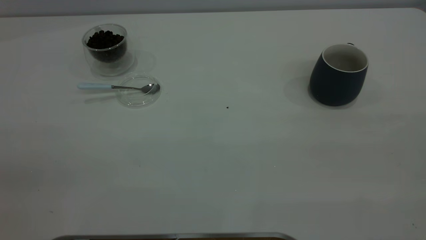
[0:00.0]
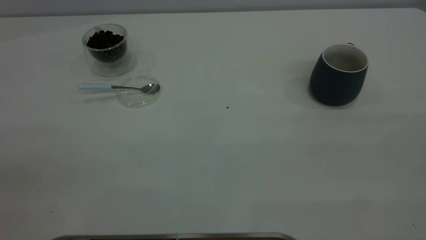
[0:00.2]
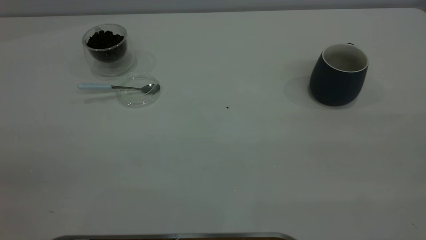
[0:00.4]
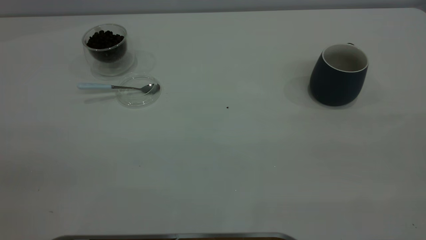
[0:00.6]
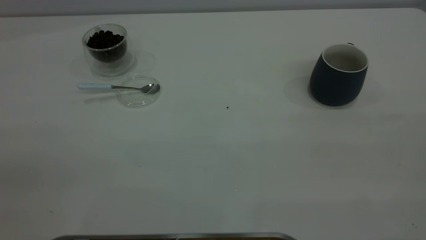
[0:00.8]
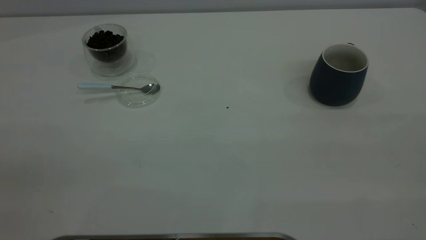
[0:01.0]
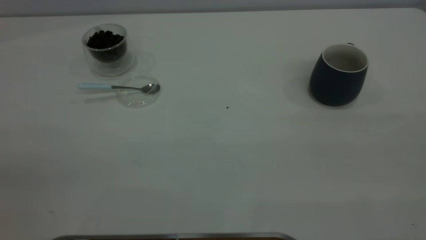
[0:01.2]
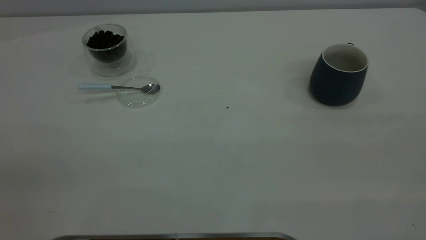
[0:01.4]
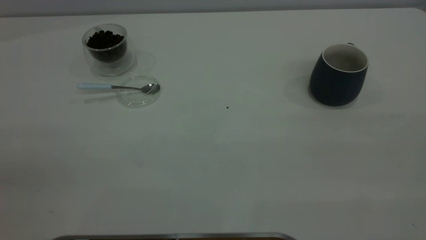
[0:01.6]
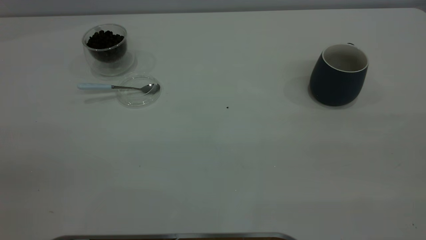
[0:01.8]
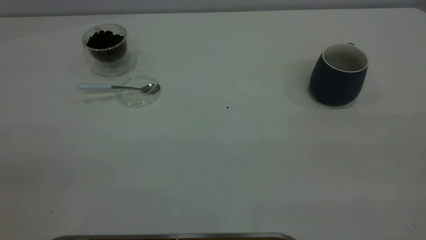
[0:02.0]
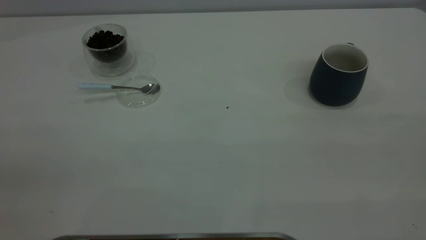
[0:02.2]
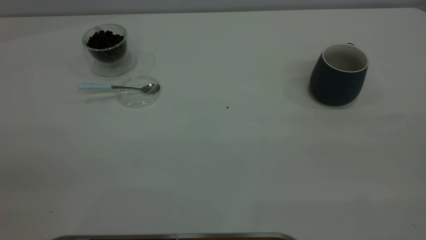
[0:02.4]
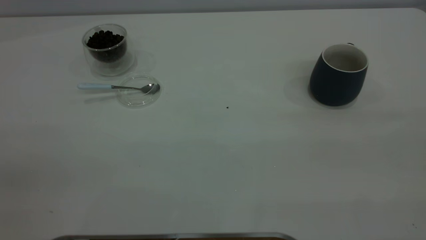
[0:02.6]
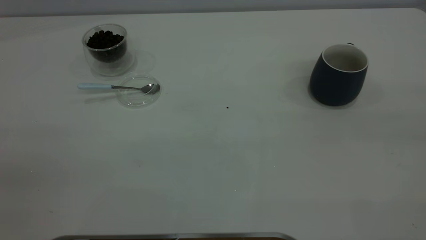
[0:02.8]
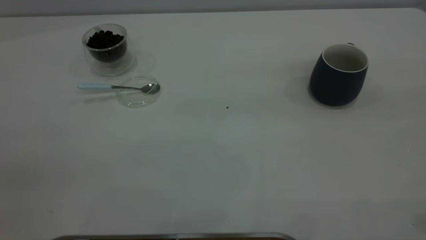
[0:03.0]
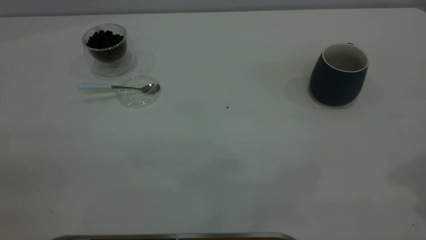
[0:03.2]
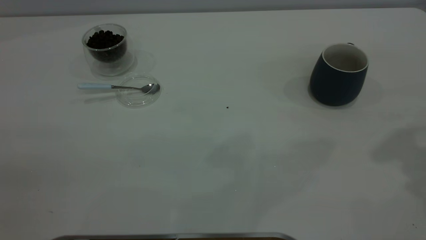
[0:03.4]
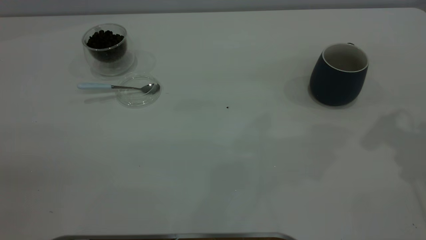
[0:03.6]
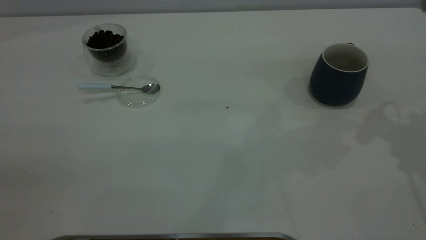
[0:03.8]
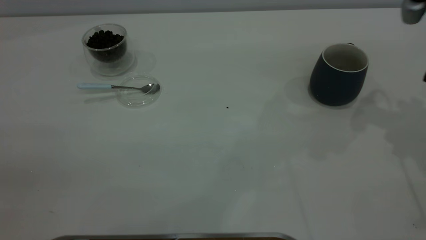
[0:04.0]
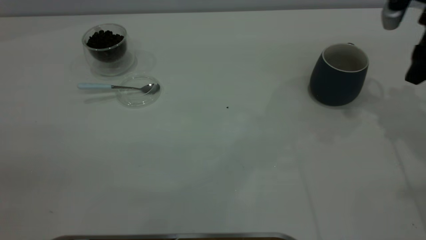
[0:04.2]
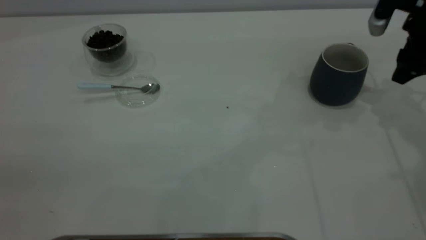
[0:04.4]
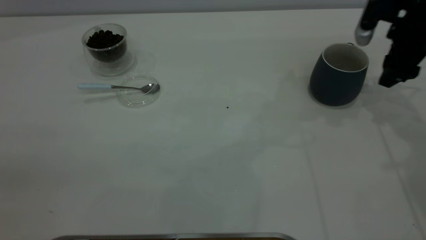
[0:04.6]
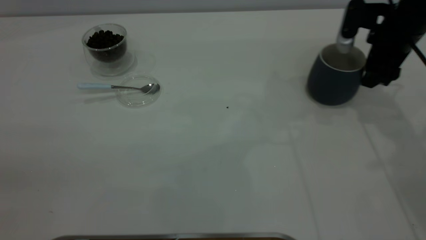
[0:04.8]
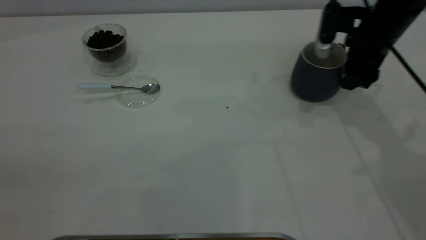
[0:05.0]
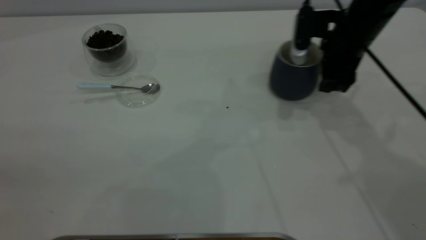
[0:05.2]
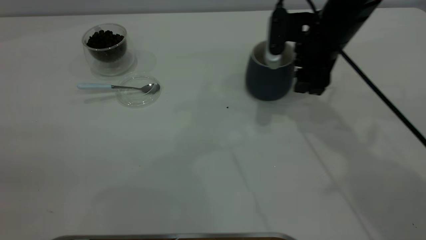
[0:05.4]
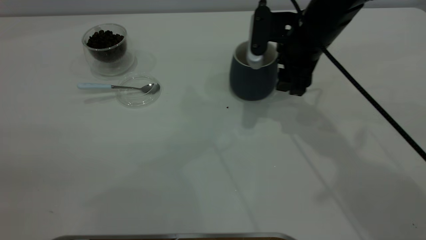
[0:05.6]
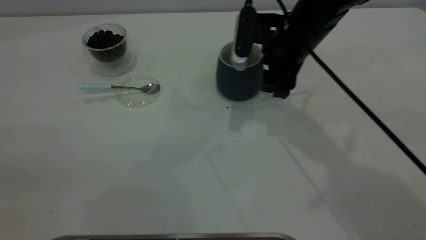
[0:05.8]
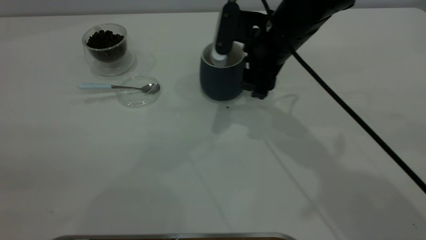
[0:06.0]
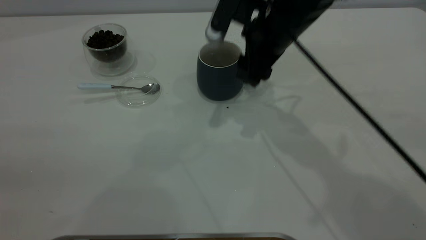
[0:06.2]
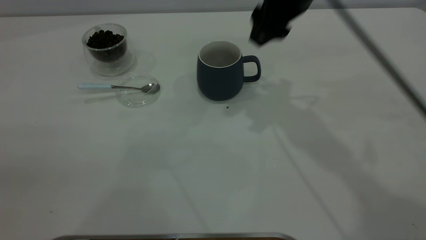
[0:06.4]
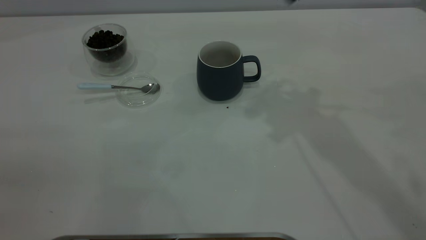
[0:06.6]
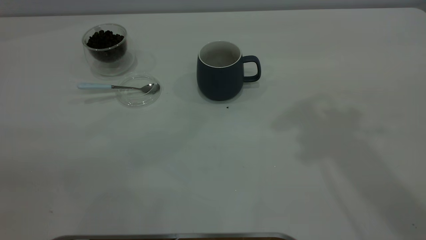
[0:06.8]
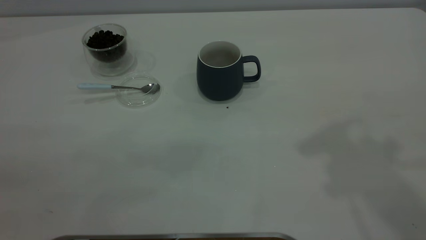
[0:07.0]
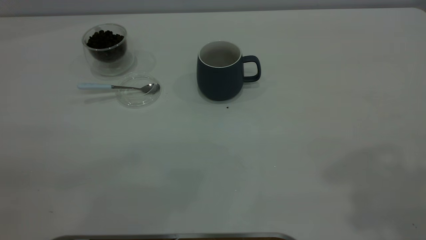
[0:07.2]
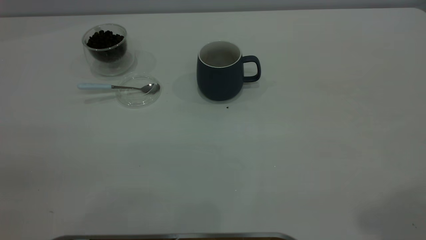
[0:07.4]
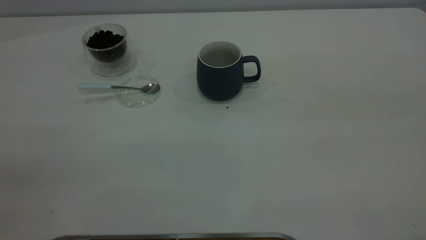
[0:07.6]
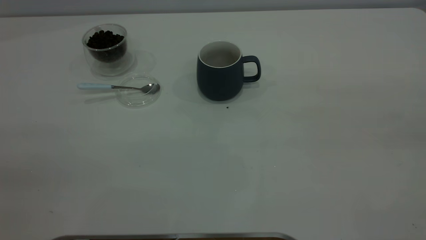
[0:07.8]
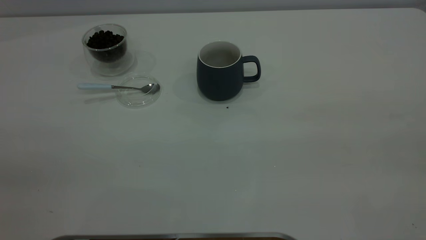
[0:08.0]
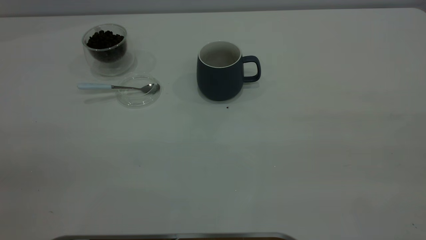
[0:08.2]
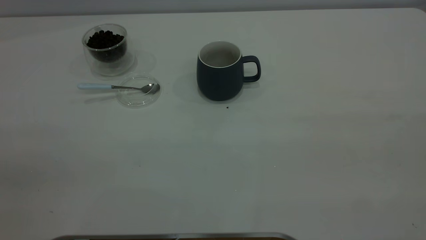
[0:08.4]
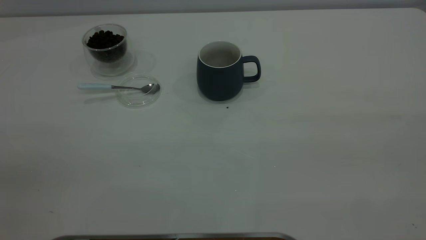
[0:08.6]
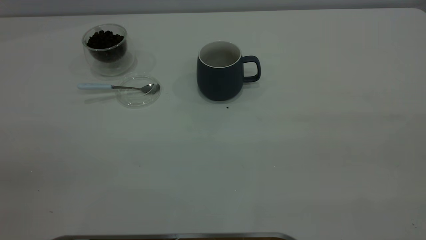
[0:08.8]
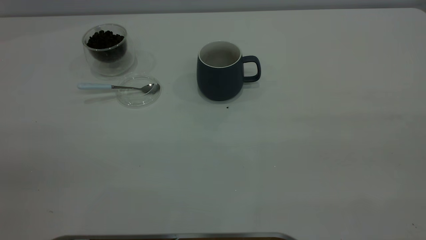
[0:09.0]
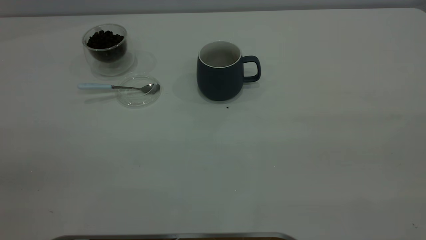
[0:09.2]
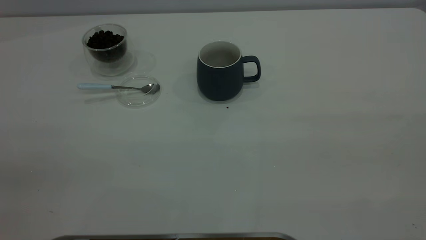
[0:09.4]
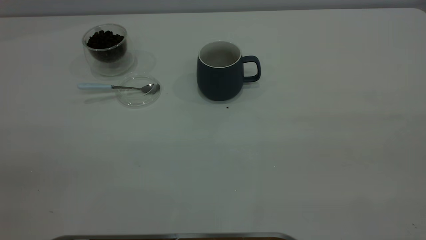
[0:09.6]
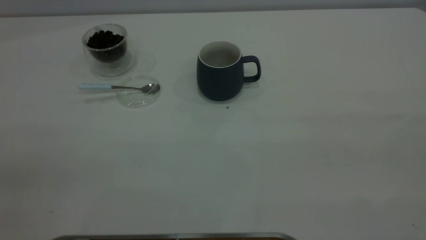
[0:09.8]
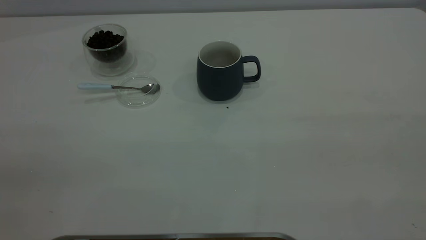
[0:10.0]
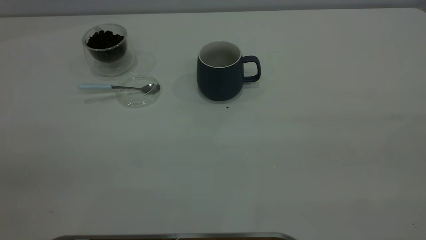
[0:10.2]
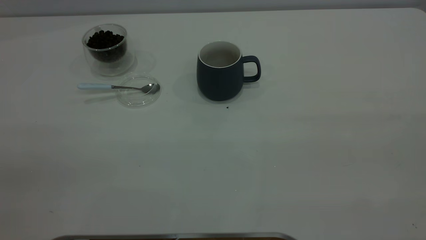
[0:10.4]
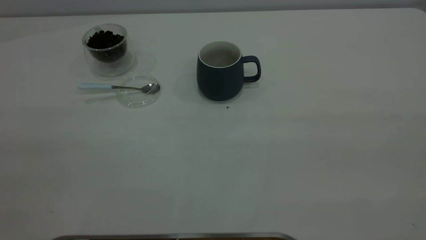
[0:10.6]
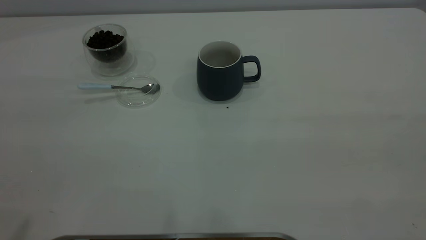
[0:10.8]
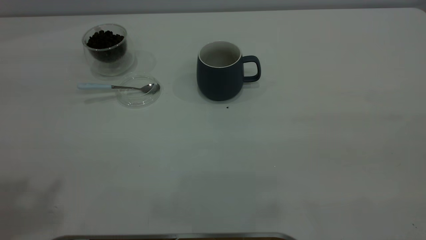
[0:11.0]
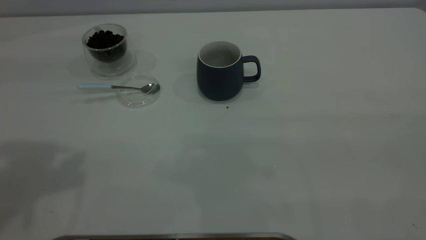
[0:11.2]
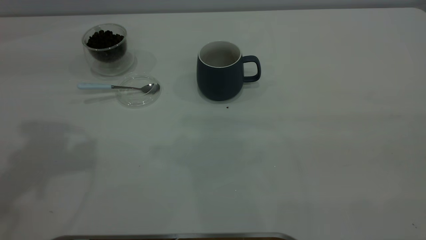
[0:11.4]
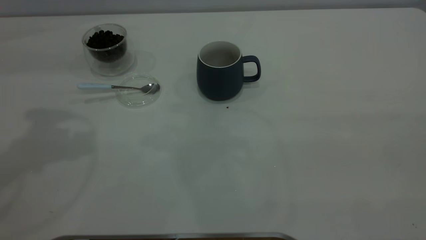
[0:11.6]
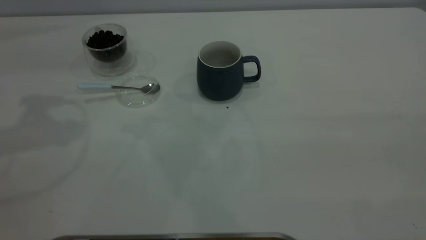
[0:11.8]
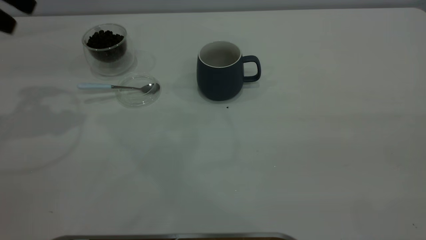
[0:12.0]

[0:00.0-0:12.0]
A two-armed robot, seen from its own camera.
Task of the whole recording: the right gripper place the grey cup in the center of the table, the left gripper take the blue spoon from the cup lid and scoop out the coffee beans from the coffee cup and put them into the grey cup, the left gripper put the spoon back into the cup lid.
Step, 0:00.0 to 0:06.4: Move the cup to the center of view.
0:00.0 to 0:01.6: Neither gripper changes place.
0:03.0 to 0:04.4: The right gripper moves forward and downward, roughly 35 cm, and closes.
0:04.4 to 0:06.0: The right gripper travels to the left by roughly 25 cm, and closes its fingers.
0:06.0 to 0:07.6: The right gripper travels upward, backward and to the right by roughly 50 cm.

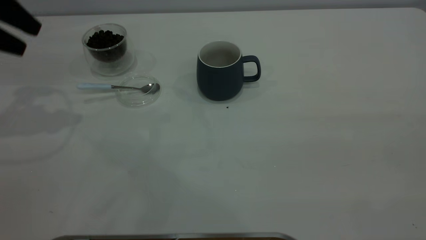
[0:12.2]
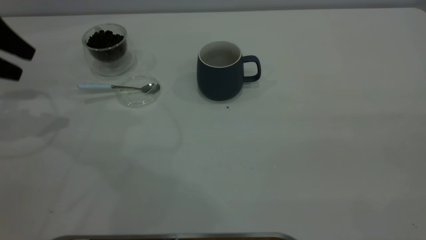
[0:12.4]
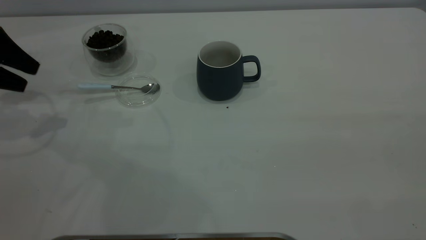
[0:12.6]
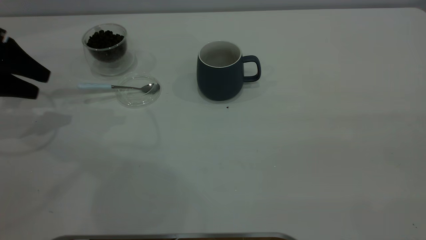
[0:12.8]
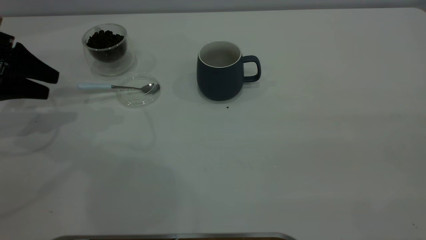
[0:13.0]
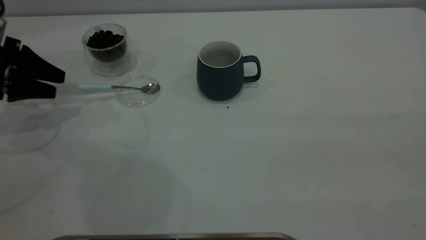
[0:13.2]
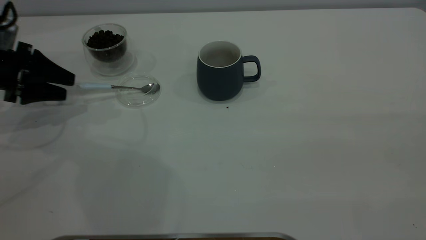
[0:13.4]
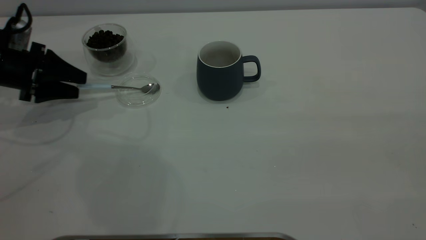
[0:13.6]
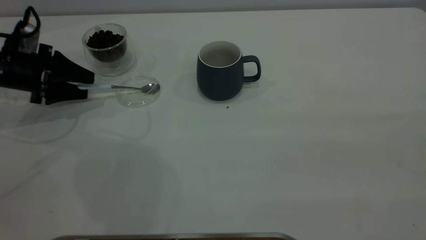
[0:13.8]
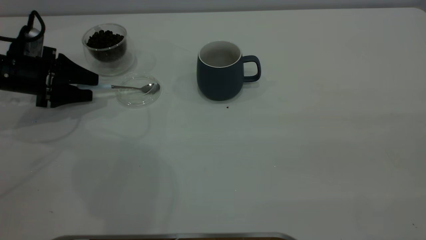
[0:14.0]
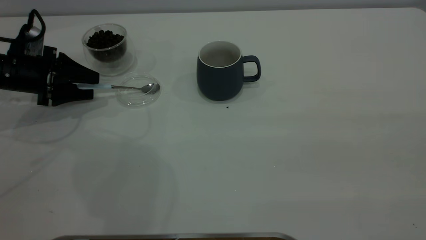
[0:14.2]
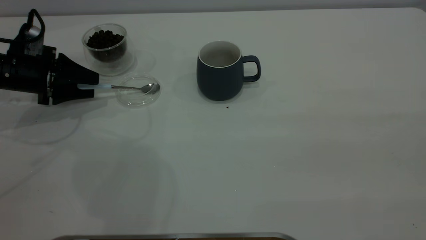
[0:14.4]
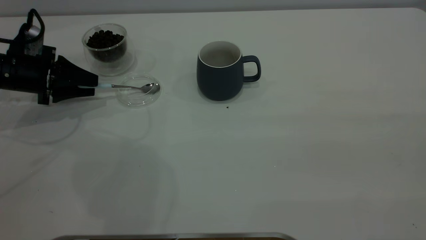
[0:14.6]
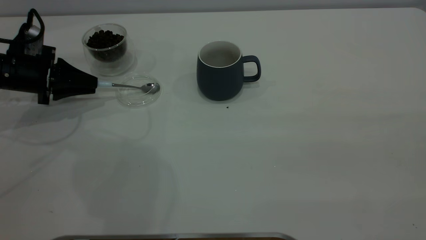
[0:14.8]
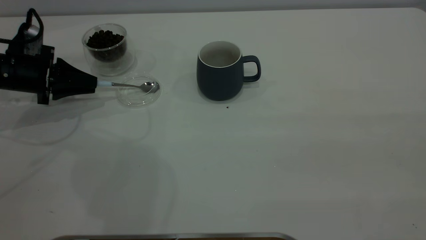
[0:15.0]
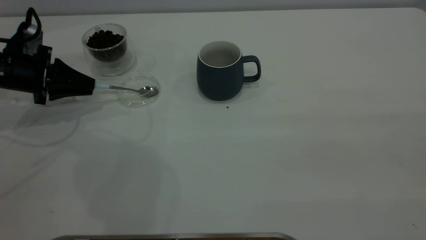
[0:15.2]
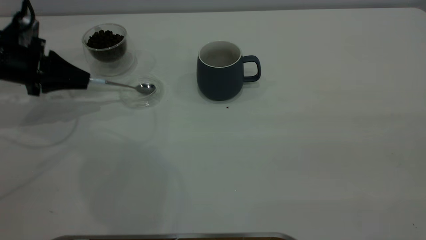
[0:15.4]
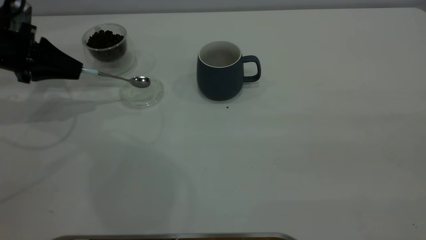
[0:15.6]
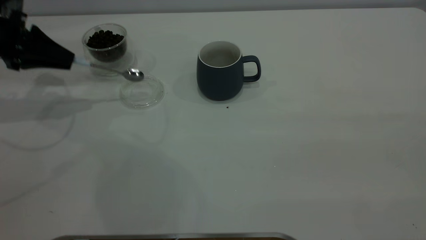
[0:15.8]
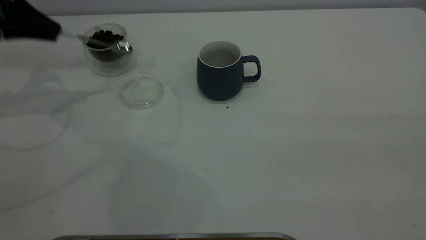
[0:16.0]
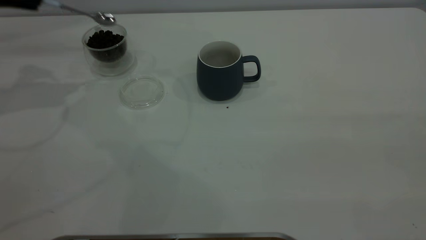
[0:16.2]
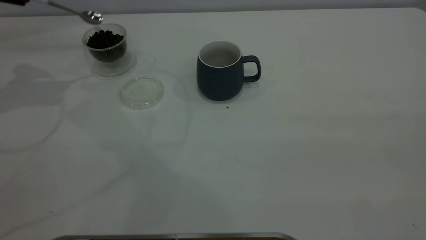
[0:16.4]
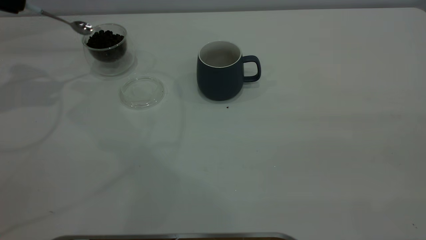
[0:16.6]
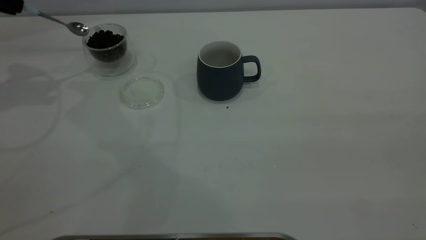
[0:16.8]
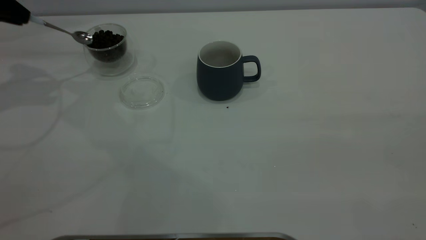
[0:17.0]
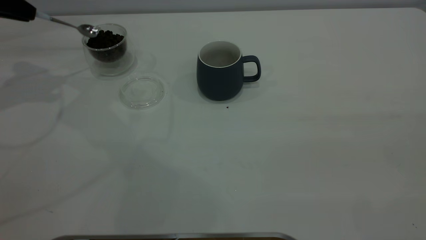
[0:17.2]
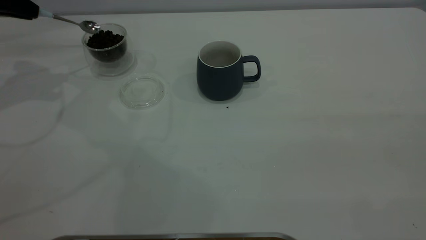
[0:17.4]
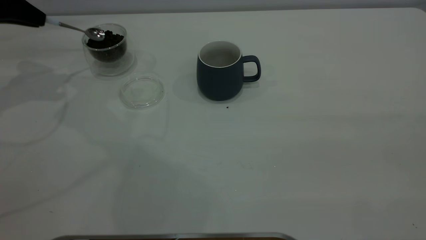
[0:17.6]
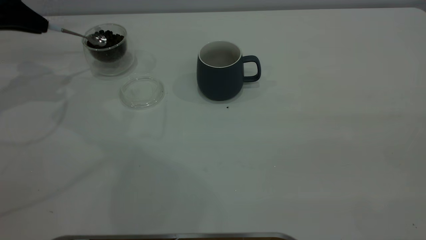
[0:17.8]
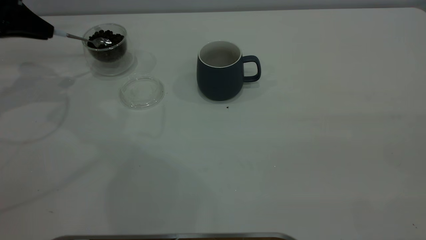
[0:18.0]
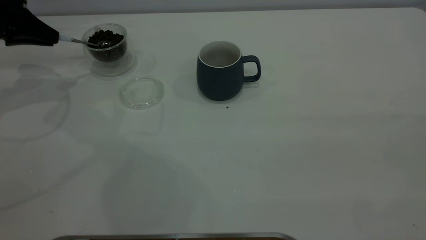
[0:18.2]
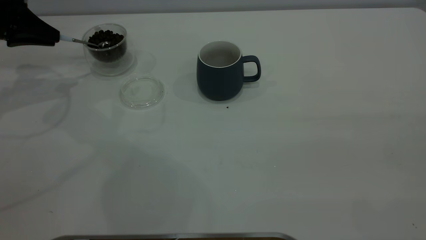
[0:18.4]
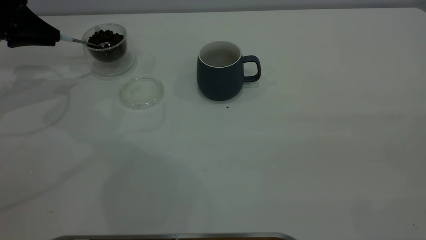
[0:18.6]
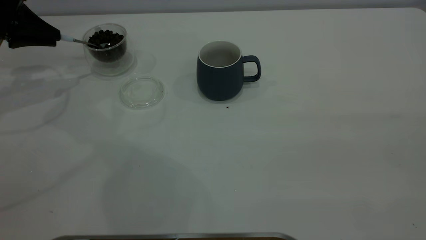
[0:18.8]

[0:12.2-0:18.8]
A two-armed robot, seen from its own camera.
Task of the whole recording: the right gripper place the grey cup in the center of the table, the left gripper take the blue spoon from the cup lid and scoop out the coffee beans from the coffee cup and put them into the grey cup, the left gripper put the spoon back into the cup lid.
Step, 0:12.2 to 0:16.0: Pick up the spoon.
0:12.2 to 0:13.8: The left gripper goes some 15 cm downward.
0:13.8 to 0:15.4: The left gripper closes its fingers.
0:15.4 to 0:17.2: The left gripper shifts some 10 cm upward.
0:17.2 to 0:18.8: The left gripper shifts approximately 5 cm downward.
